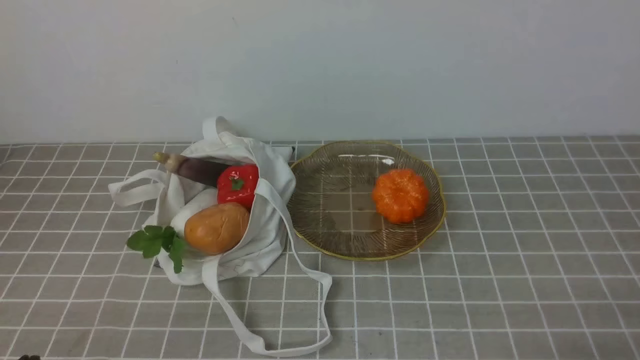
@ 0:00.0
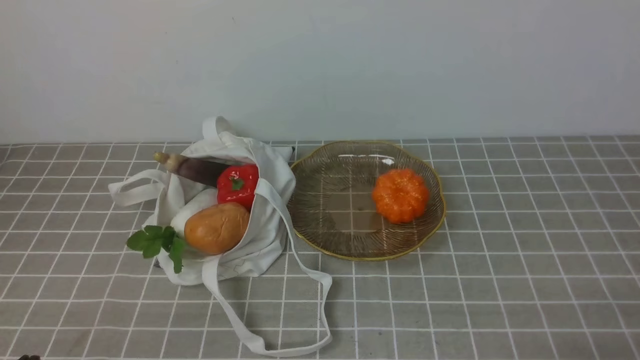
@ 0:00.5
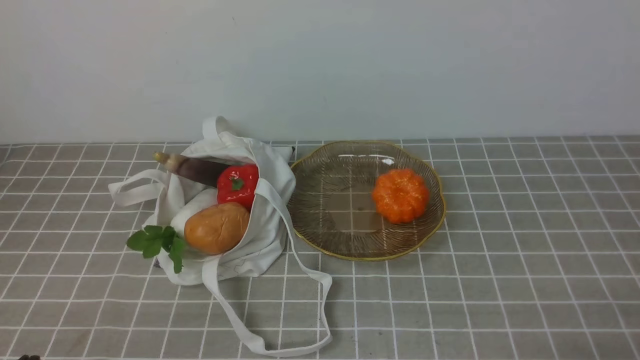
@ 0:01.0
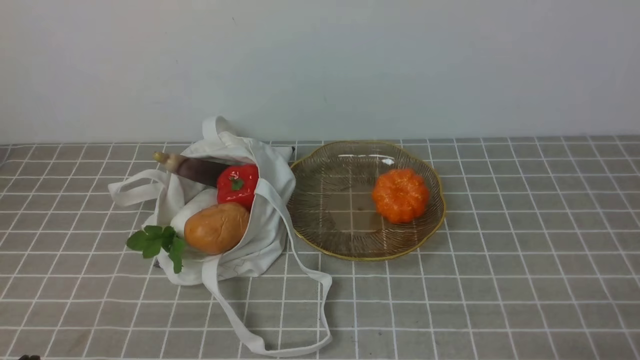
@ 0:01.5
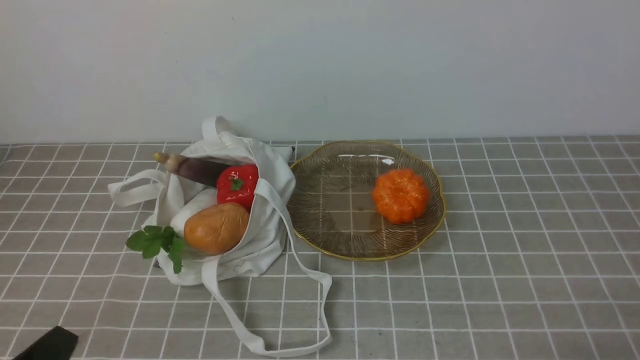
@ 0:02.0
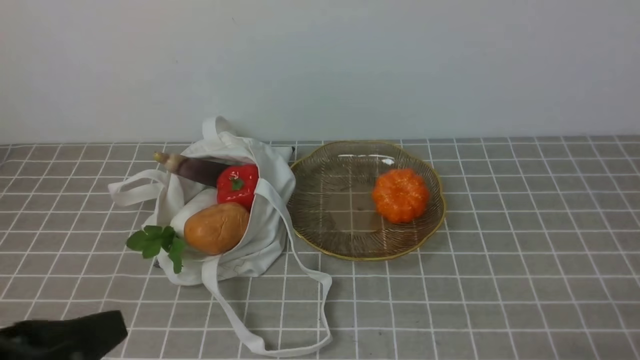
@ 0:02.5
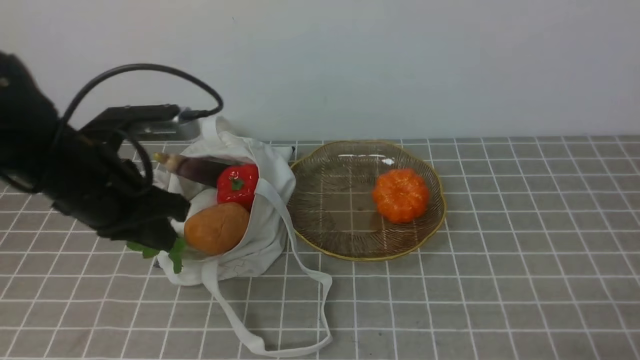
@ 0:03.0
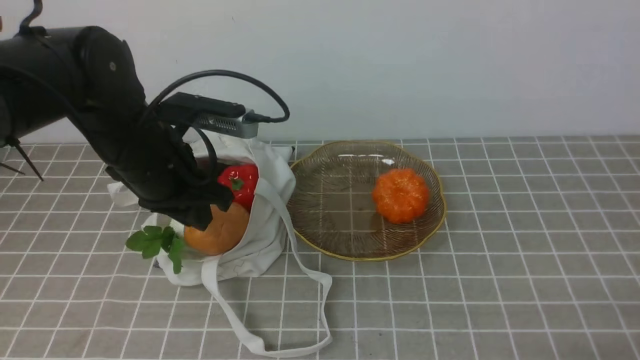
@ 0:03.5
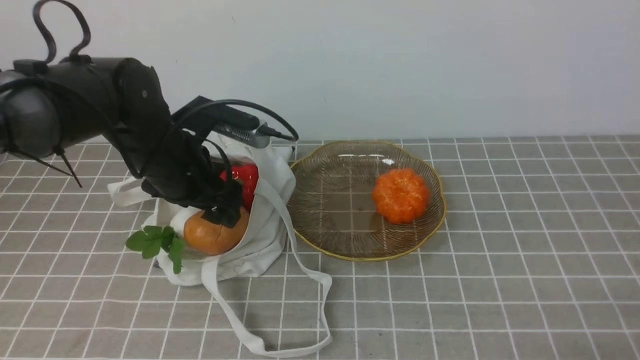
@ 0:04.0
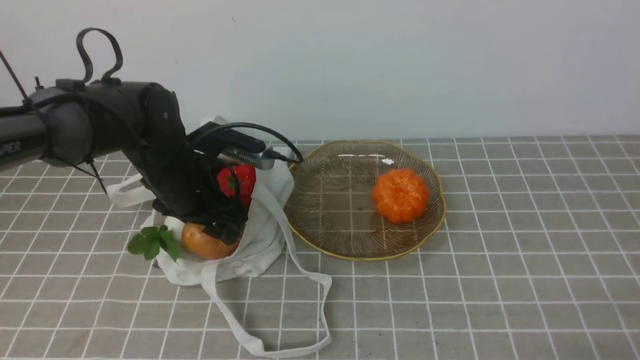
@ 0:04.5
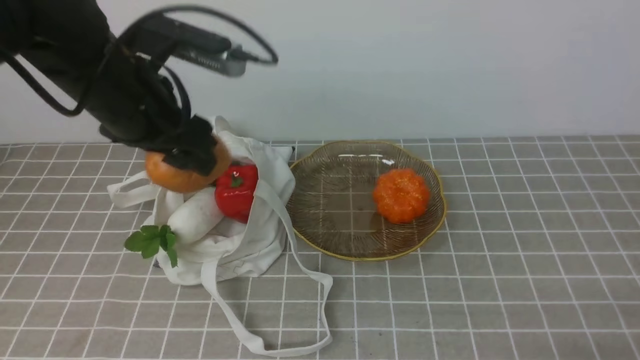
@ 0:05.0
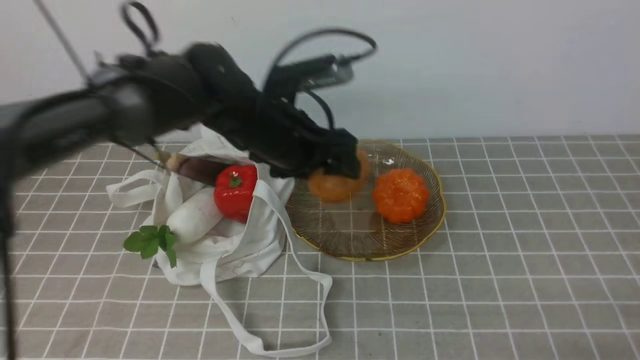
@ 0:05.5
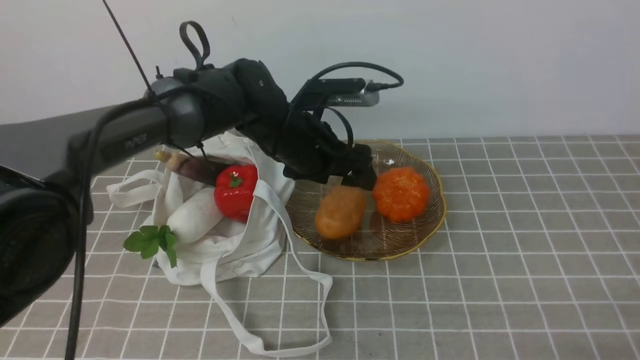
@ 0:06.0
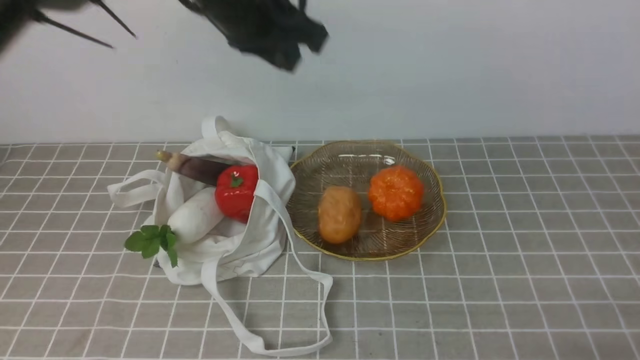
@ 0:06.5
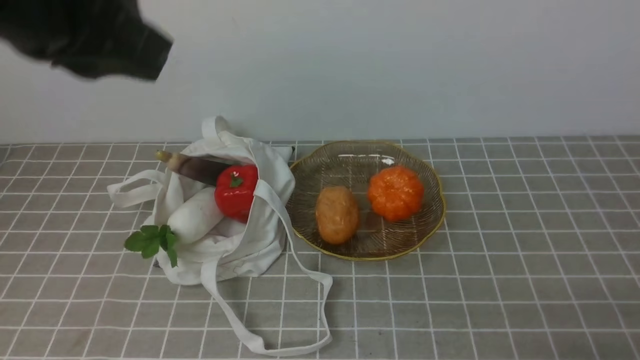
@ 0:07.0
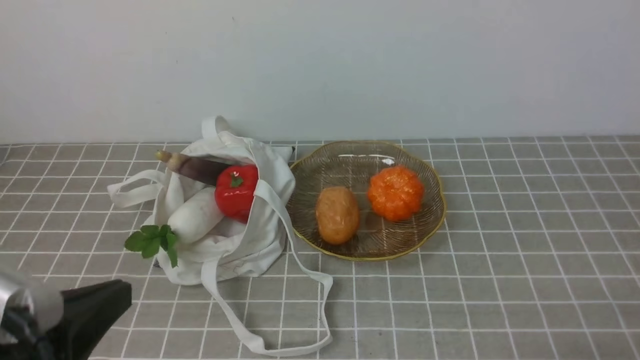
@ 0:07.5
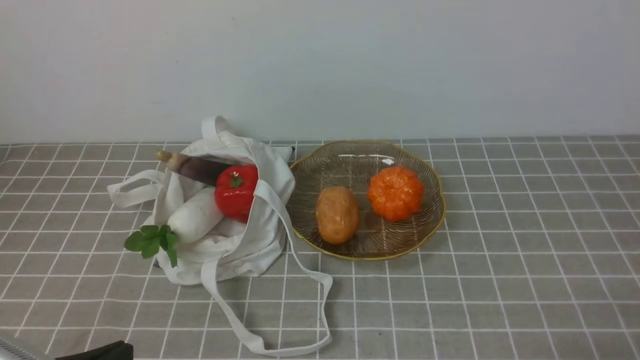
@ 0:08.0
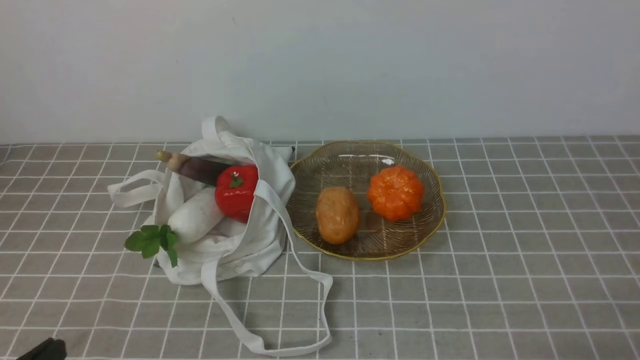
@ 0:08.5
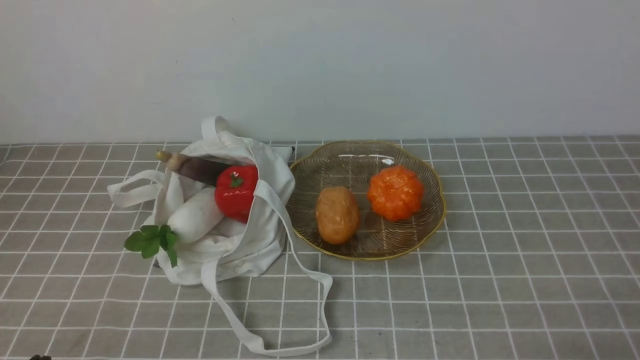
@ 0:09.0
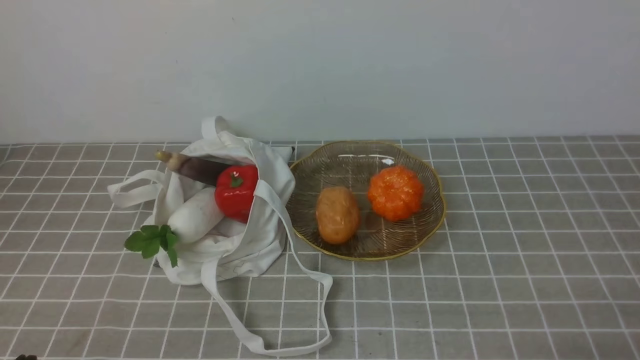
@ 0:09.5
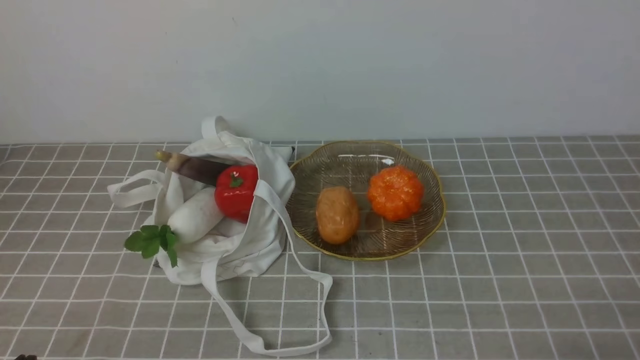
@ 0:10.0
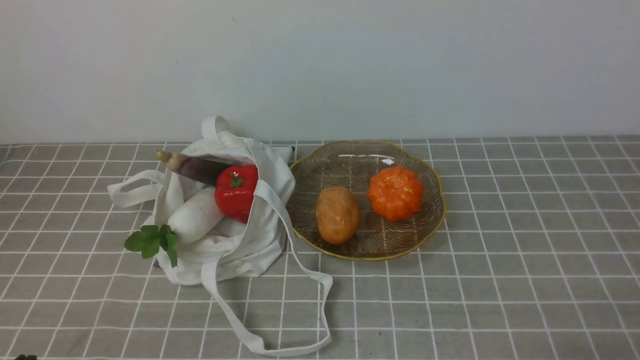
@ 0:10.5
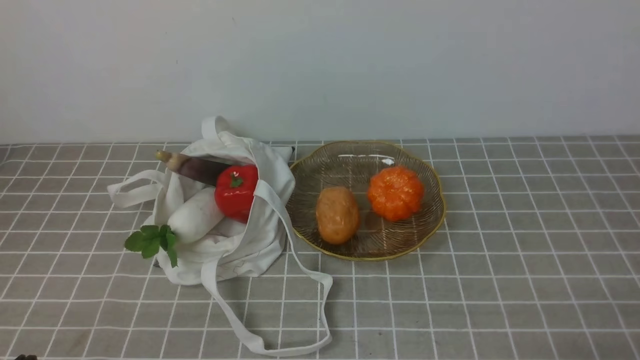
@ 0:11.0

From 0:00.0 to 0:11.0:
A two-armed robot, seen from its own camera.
Task of the whole recording: take vegetables from bag on grey coffee tablecloth place on plate.
Step, from 0:00.0 to 0:04.0: Grasp the potato with left gripper.
Step, from 0:05.0 to 0:06.0: Place the potato on the plate with left gripper.
From 0:02.0 to 0:03.5: The left gripper moves forward, approximately 25 cm.
From 0:03.5 to 0:05.5: The left gripper is displaced to the right and forward by some 10 cm, travels downward and back again, roughly 5 cm each way, and opens up.
From 0:05.5 to 0:07.5: The left gripper shifts approximately 30 cm backward and to the left, and closes.
From 0:07.5 to 0:09.0: The left gripper travels downward by roughly 15 cm.
From 0:09.0 to 0:11.0: The two grippers keep their place.

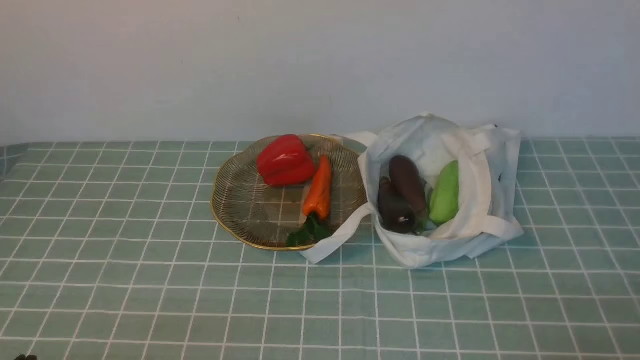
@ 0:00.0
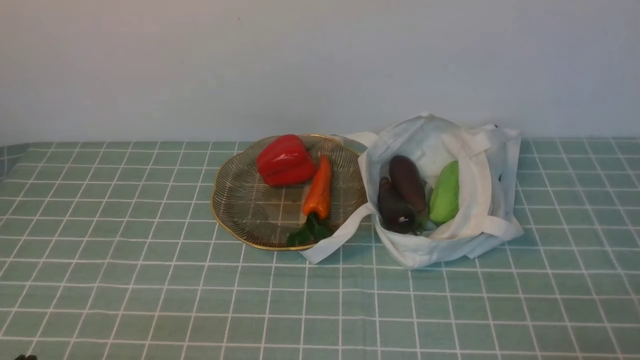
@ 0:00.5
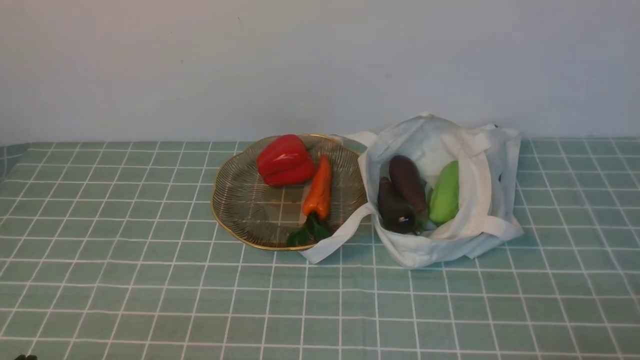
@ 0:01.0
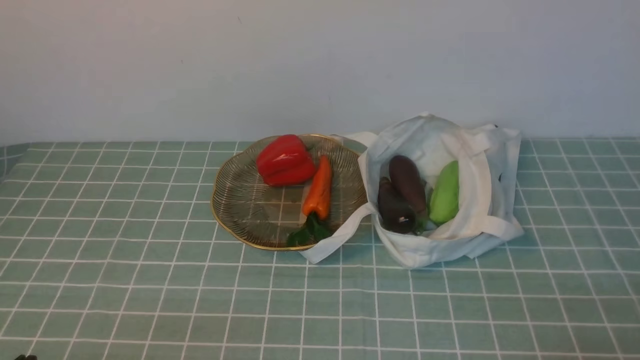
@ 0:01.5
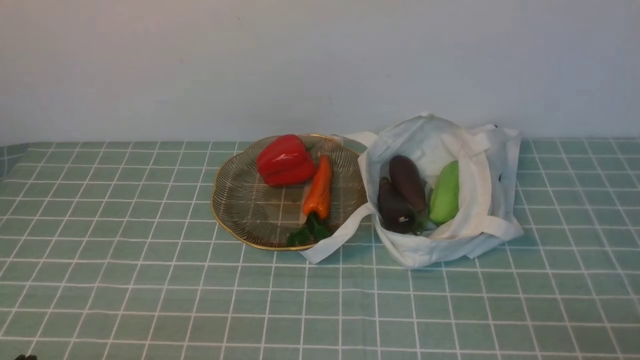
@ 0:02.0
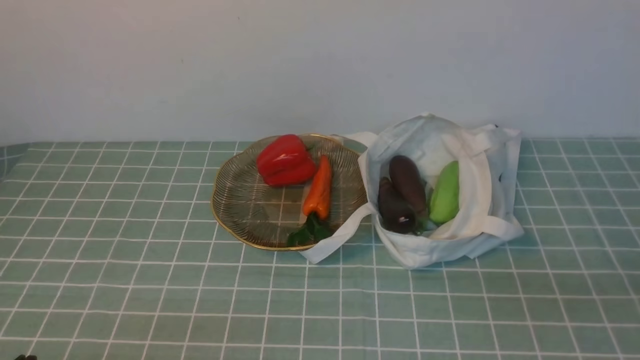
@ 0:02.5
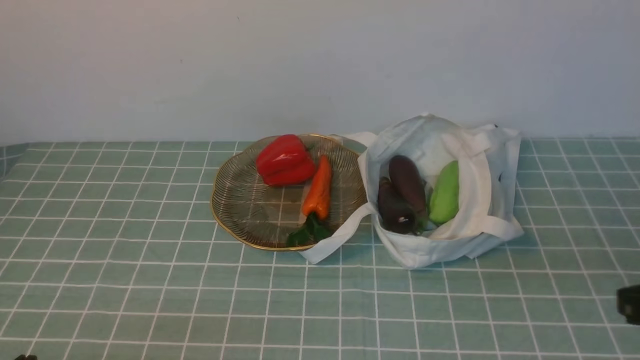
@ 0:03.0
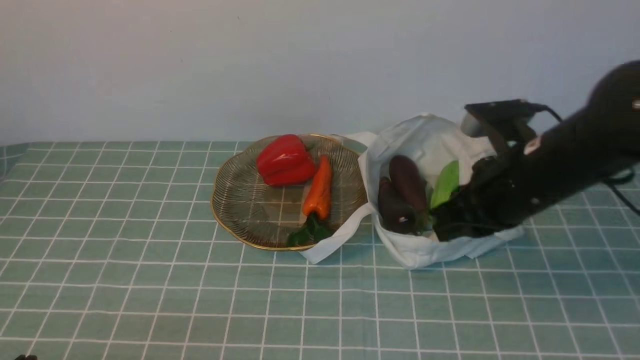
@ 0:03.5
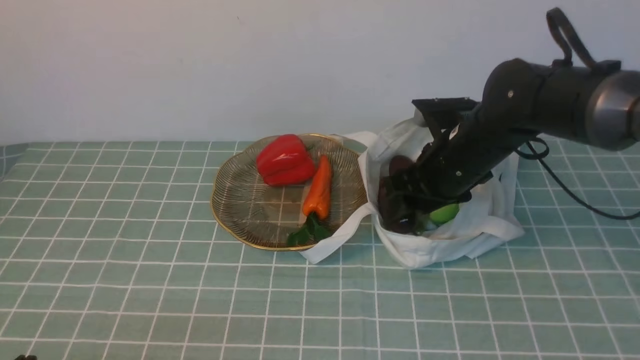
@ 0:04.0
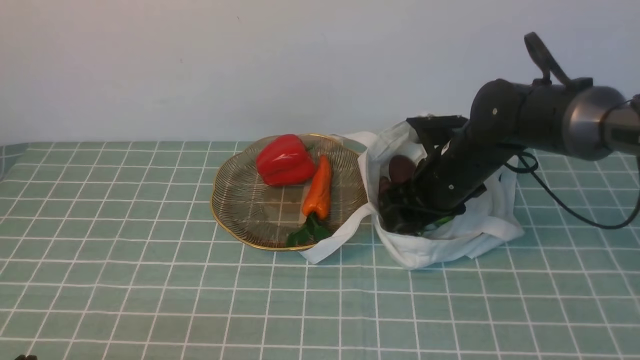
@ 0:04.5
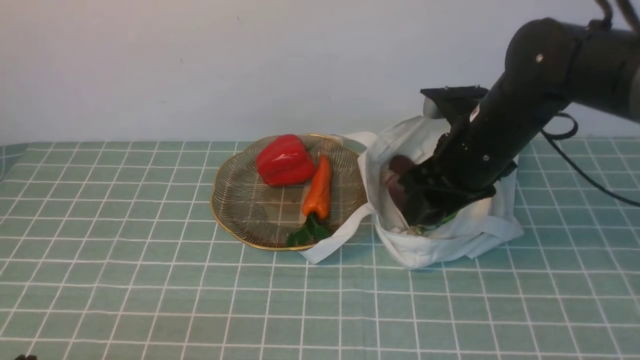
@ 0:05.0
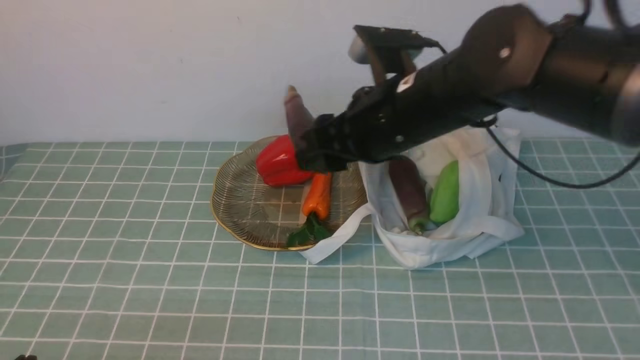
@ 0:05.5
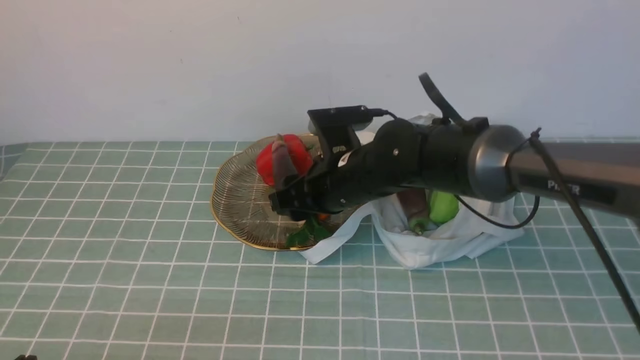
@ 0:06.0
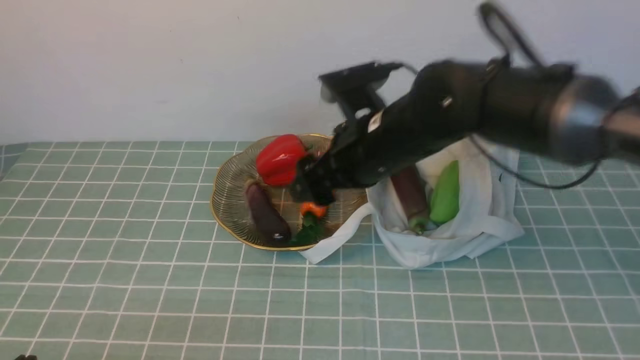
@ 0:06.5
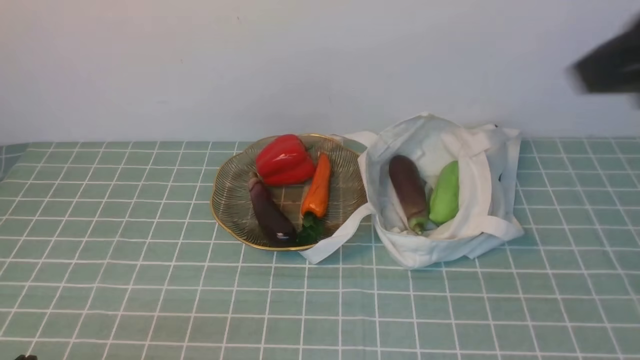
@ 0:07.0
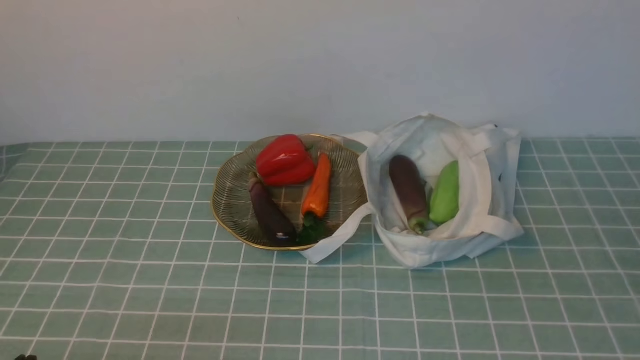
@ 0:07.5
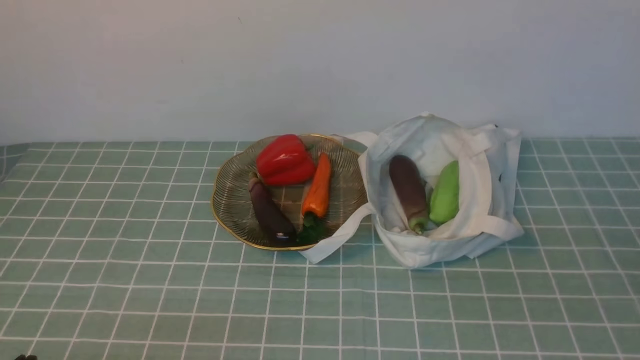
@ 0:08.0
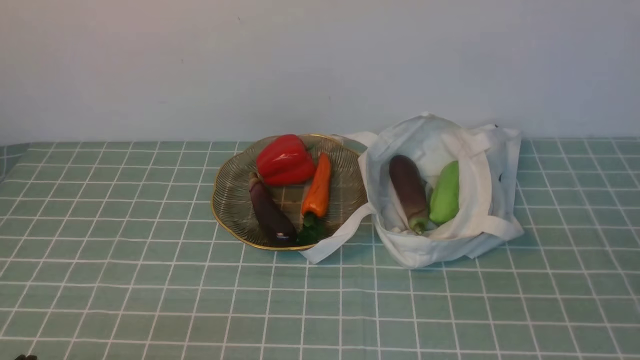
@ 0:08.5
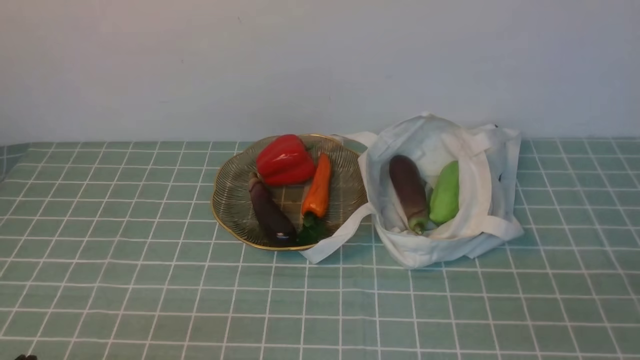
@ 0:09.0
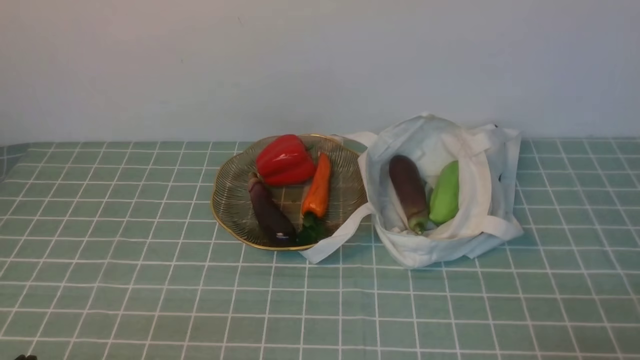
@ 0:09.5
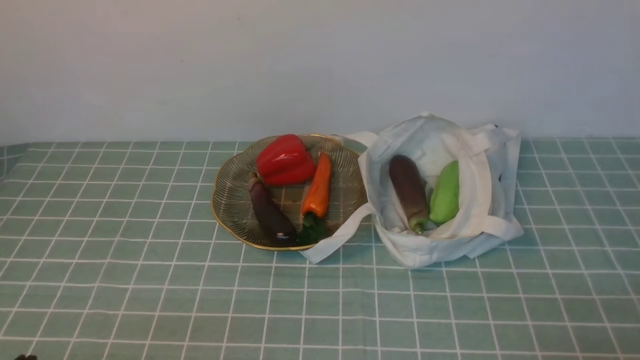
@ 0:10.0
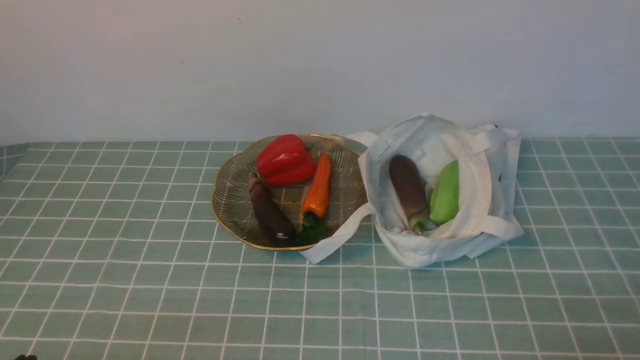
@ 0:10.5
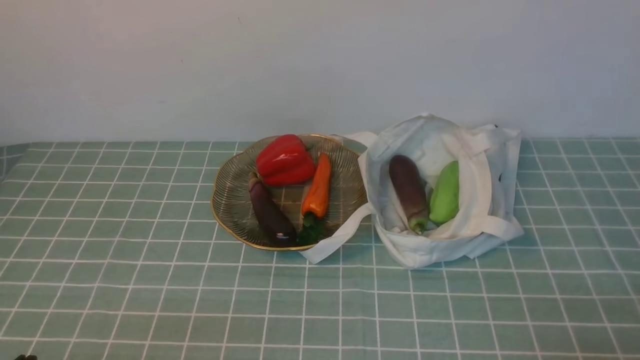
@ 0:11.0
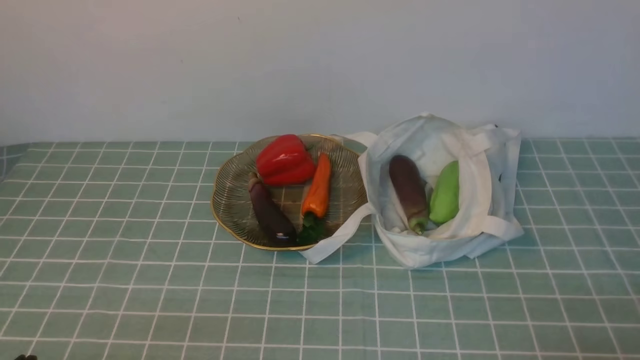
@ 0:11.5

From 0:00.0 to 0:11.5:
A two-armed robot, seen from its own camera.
Task of the whole recording: take vegetables from cloth bag on blue coffee tablecloth place on plate.
Step, from 0:00.0 to 0:04.5: Grasp the eggplant with right gripper.
Step, from 0:05.0 to 0:06.0: Place the eggplant on the plate with right gripper.
From 0:02.0 to 0:04.0: The right gripper is displaced forward and to the left by about 35 cm, and opens.
From 0:04.0 to 0:06.0: The right gripper shifts about 10 cm to the left.
From 0:06.0 to 0:07.5: The right gripper goes roughly 50 cm backward, to the right and upward, and closes up.
From 0:09.5 to 0:11.5: Both grippers stay about where they are.
